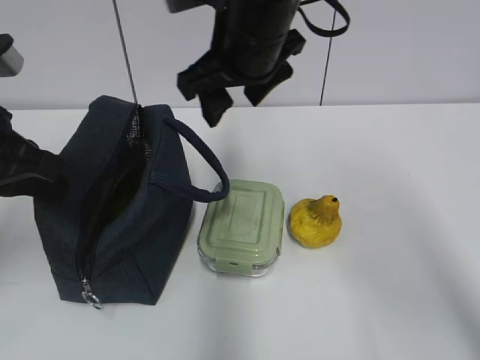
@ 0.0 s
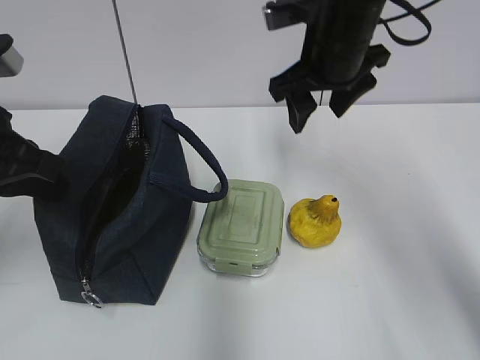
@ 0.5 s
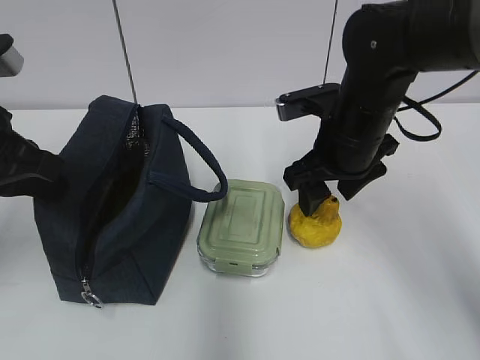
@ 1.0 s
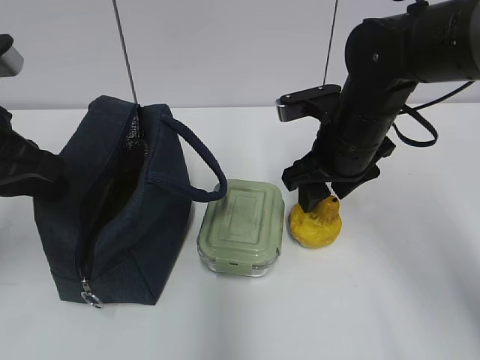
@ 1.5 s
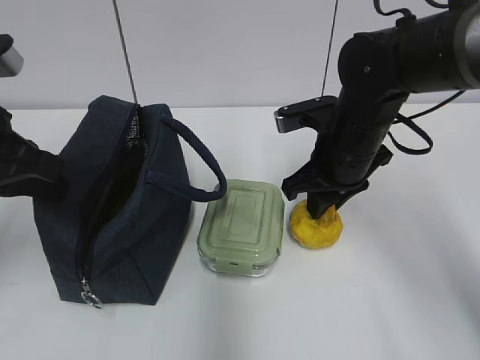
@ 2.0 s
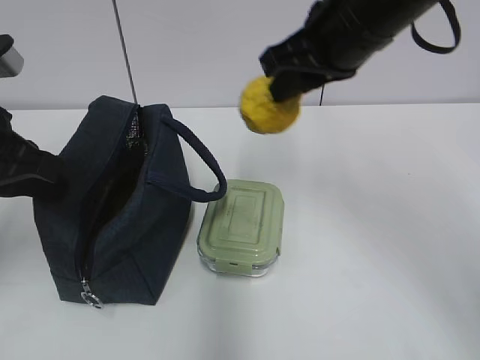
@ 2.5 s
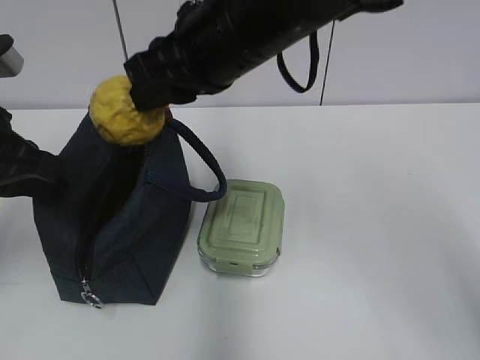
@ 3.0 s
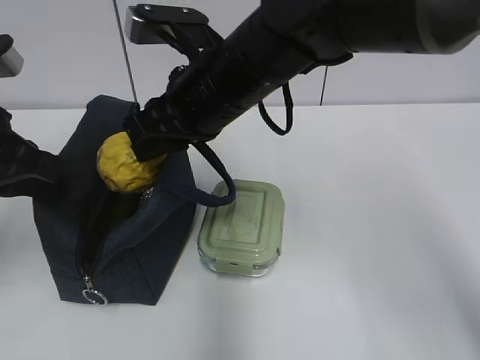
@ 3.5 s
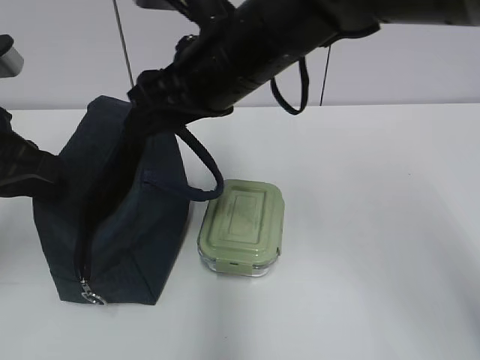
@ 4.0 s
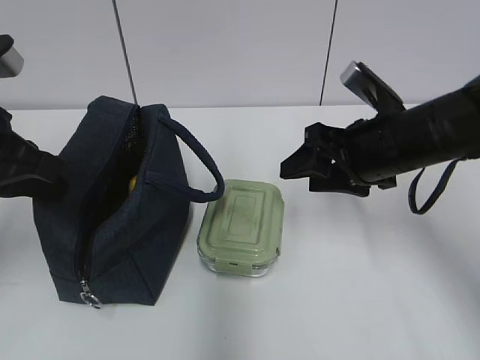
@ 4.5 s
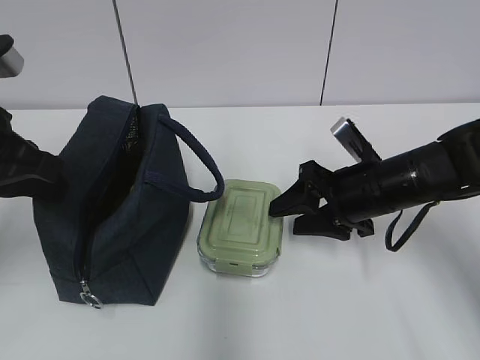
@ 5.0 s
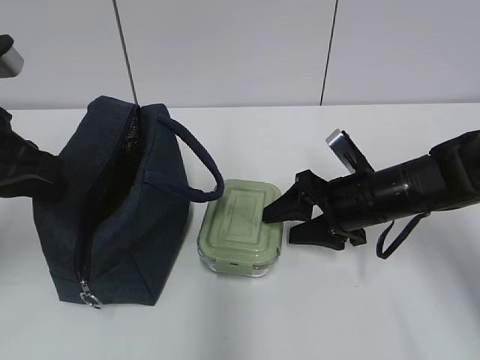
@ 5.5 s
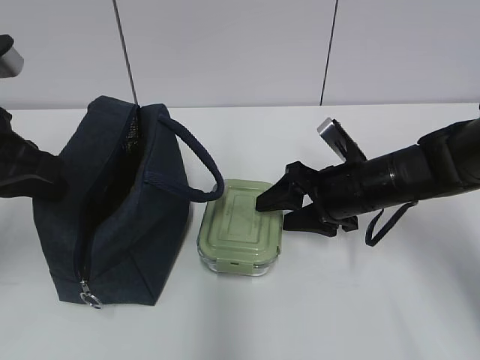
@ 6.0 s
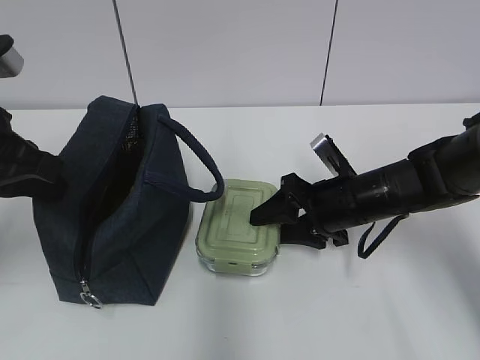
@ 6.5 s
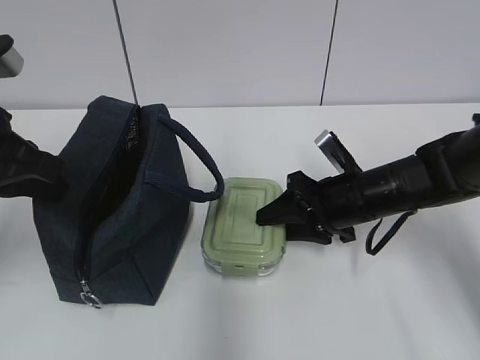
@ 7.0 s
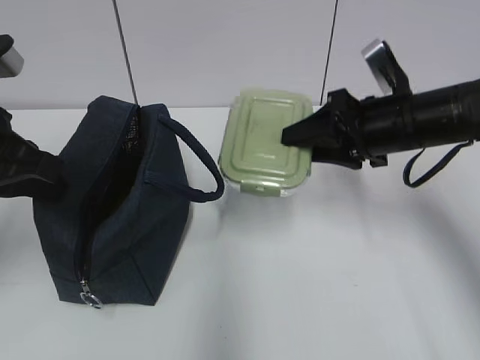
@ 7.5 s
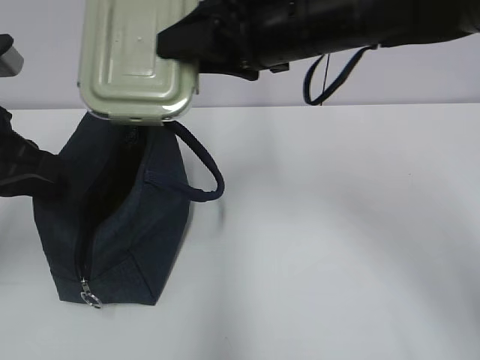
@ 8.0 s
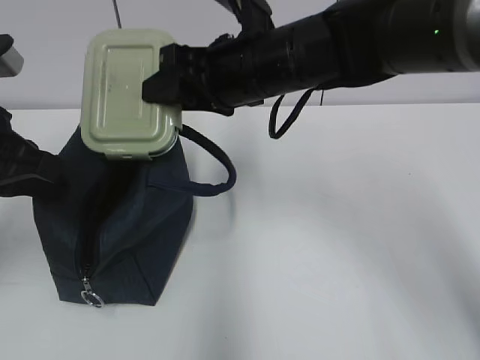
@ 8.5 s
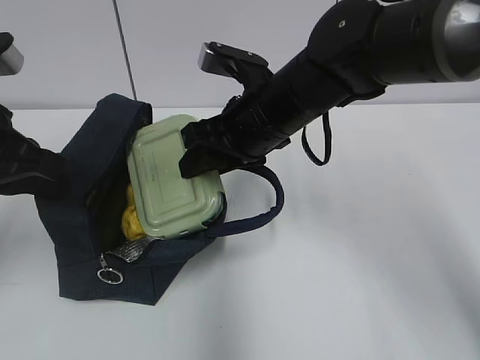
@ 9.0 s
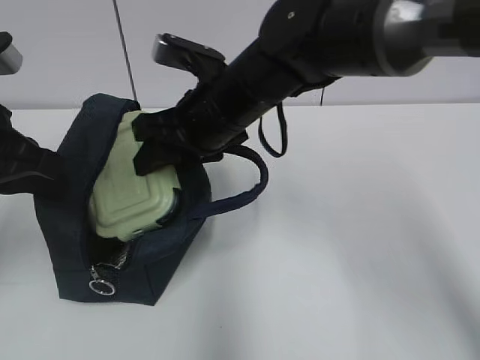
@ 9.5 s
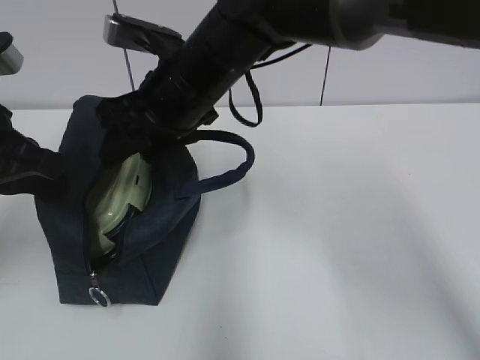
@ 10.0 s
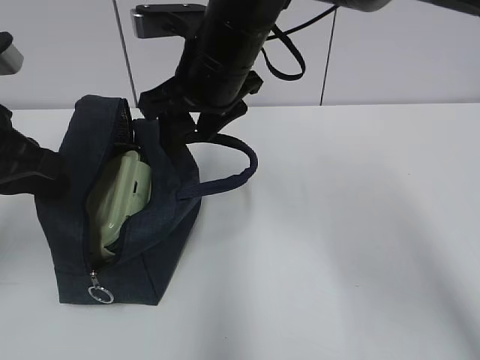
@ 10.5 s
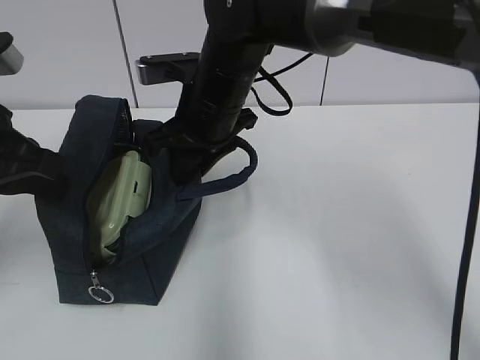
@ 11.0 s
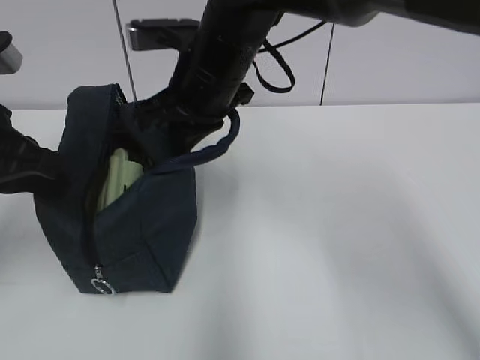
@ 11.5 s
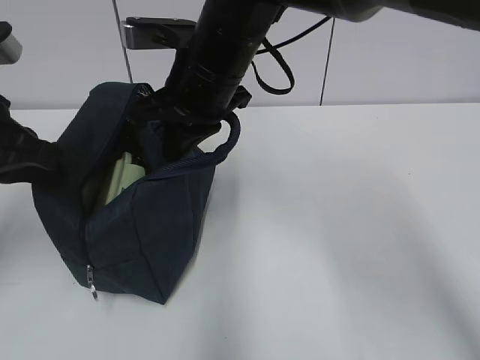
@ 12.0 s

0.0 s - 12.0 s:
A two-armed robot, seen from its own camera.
Step, 0.0 s - 1.5 s: Grab the pear with your right hand.
Step, 2.5 s - 3.5 s: Place it into the bag with your right hand.
Step, 4.0 s - 6.5 s: Grab the lunch box with your right hand.
Step, 10.5 s - 11.5 s: Grab the lunch bag with your right hand.
0.0 s - 2.0 s: The right gripper travels downward and to the right by about 15 cm, and closes up.
2.0 s - 4.0 s: The right gripper travels upward and to the left by roughly 15 cm, and opens.
4.0 s - 6.0 s: The right gripper travels downward and to the right by about 20 cm.
6.0 s - 8.0 s: The right gripper shifts approximately 20 cm upward and to the left.
8.0 s - 10.0 s: The right gripper is displaced to the left and downward by roughly 10 cm.
10.0 s - 12.0 s: The right gripper closes up.

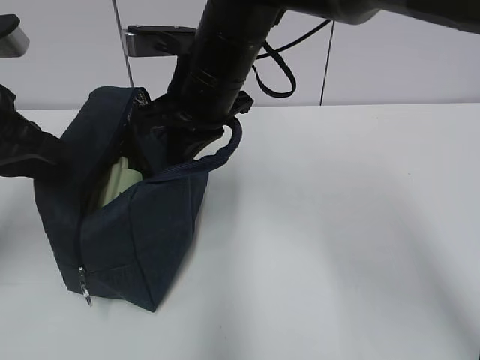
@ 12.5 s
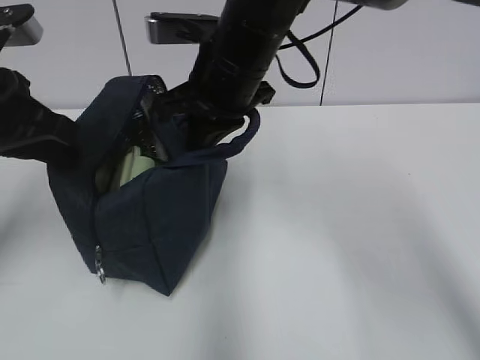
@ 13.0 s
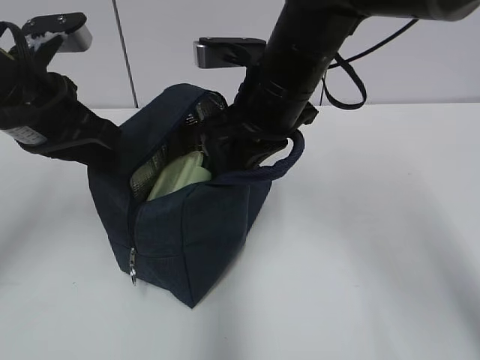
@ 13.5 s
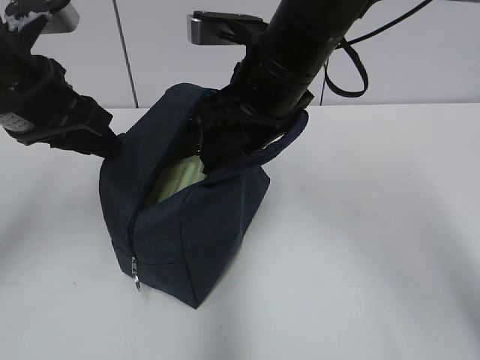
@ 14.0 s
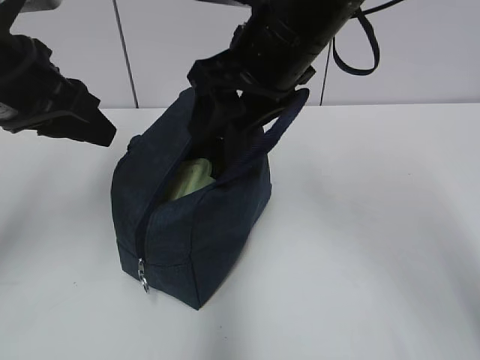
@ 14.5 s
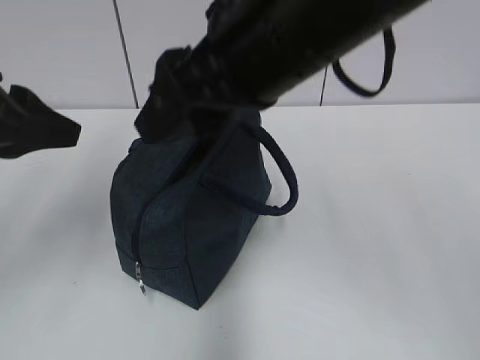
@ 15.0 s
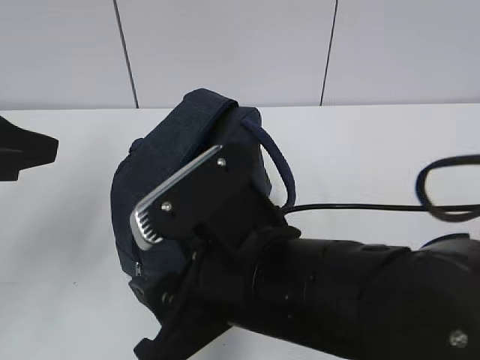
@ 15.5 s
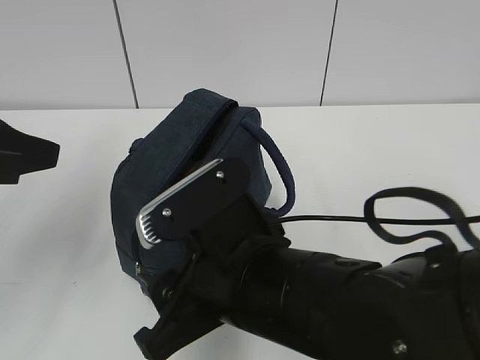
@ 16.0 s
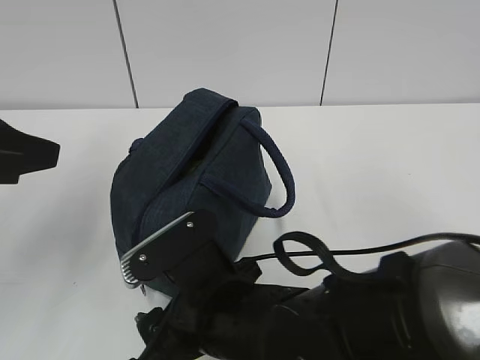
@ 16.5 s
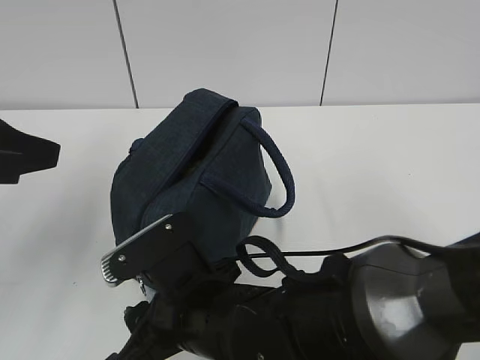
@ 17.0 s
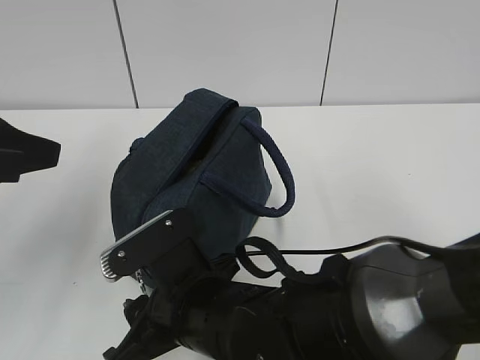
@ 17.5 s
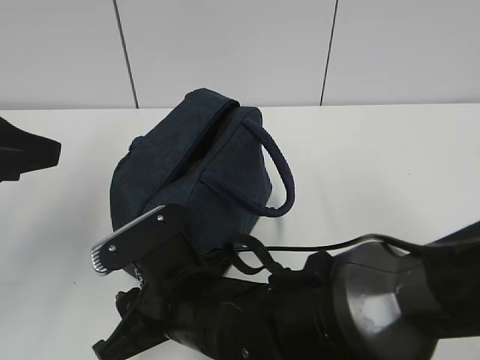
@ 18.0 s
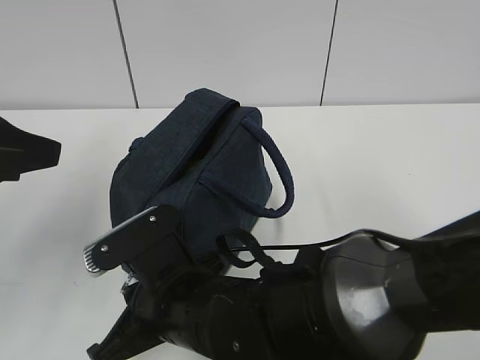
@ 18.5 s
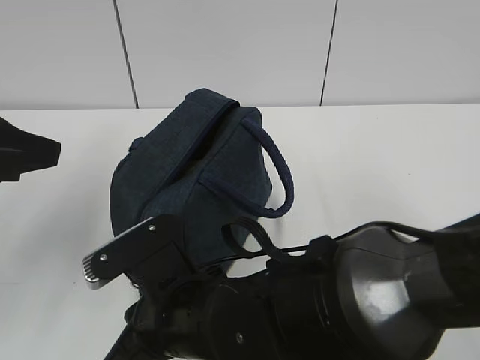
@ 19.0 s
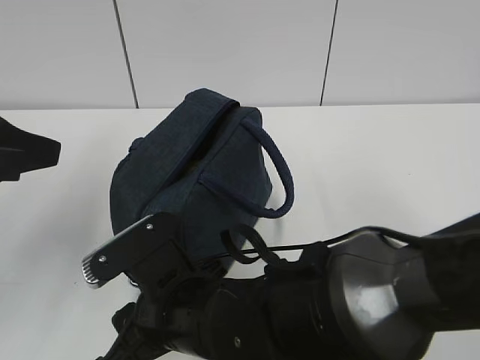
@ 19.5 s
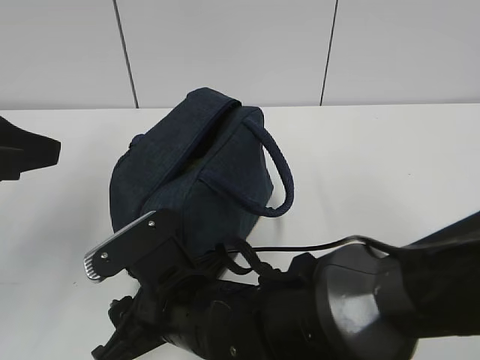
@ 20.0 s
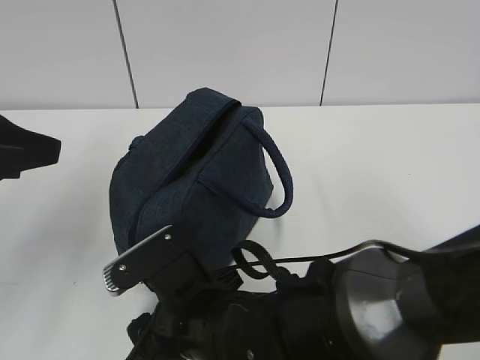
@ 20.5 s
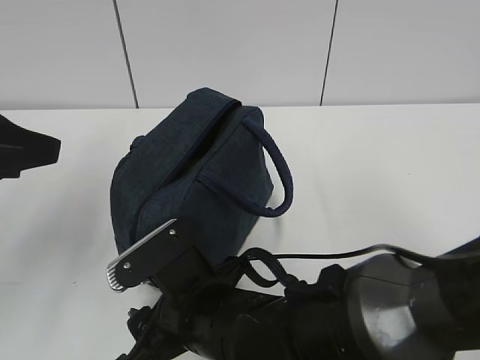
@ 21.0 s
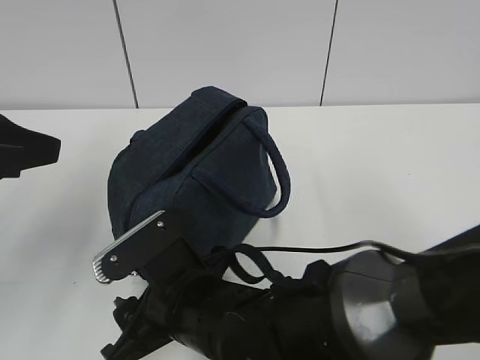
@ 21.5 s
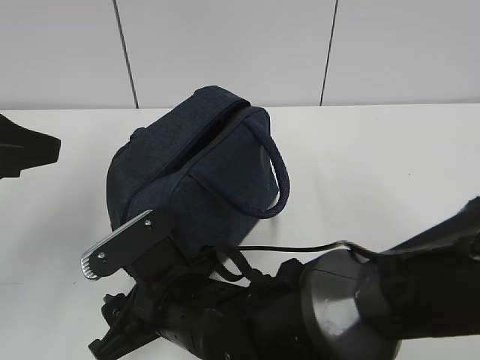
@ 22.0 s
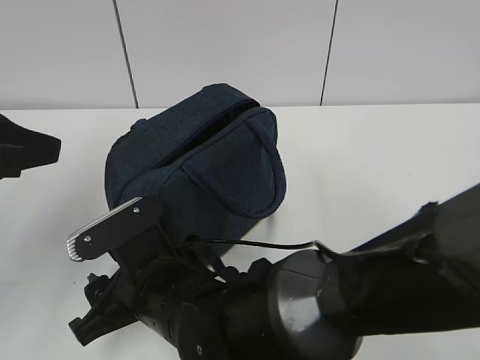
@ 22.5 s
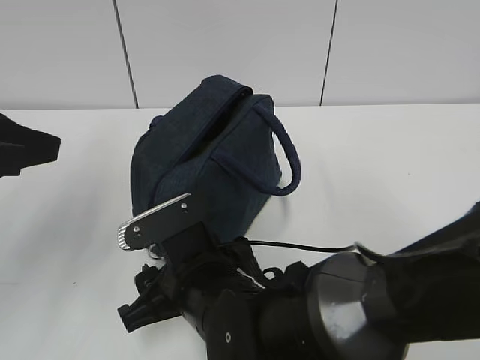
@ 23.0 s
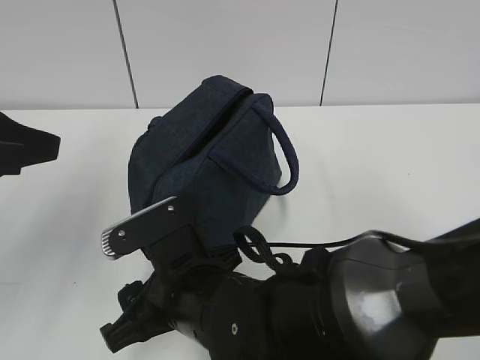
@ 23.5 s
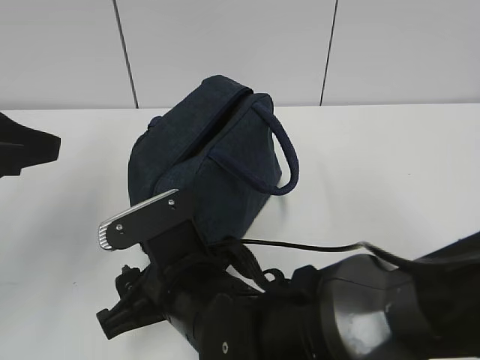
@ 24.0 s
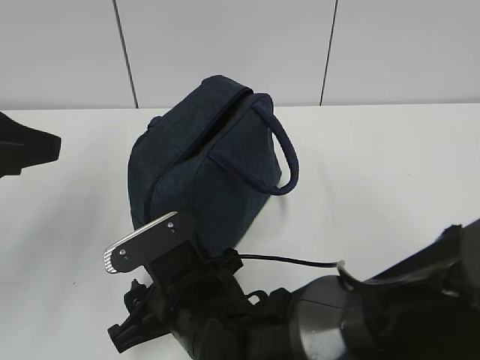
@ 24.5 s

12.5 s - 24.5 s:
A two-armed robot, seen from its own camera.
Step, 12.5 s - 14.0 s: Move the lunch bag to the right.
12.5 s - 14.5 s: The left gripper opens, while the right gripper heads to the right, covering approximately 5 cm, and opens.
14.5 s - 16.5 s: The left gripper travels backward by about 10 cm. The right gripper shifts approximately 25 cm downward and backward.
16.5 s - 18.5 s: The right gripper closes its fingers.
18.5 s - 20.5 s: The right gripper opens up.
20.5 s - 24.5 s: The grippers stay close to where they were, moving slightly.

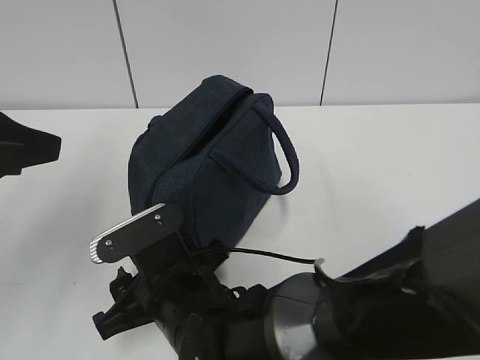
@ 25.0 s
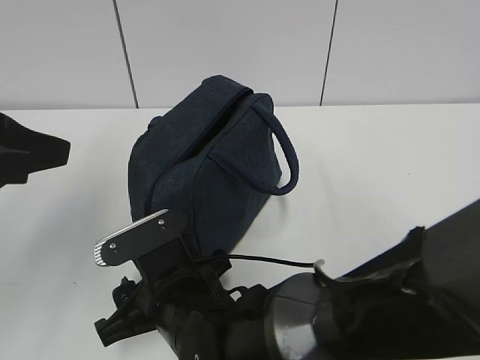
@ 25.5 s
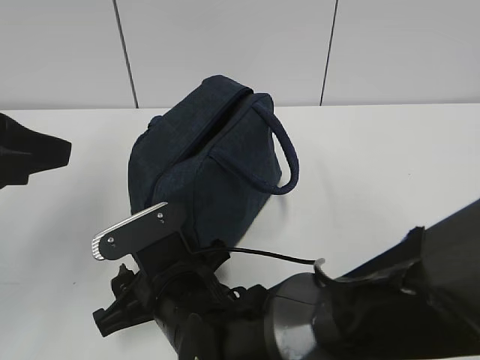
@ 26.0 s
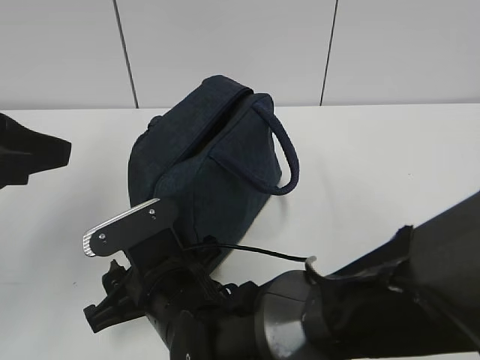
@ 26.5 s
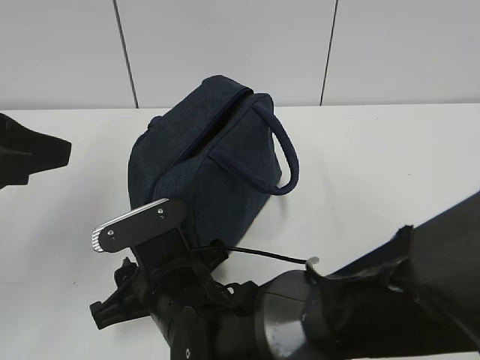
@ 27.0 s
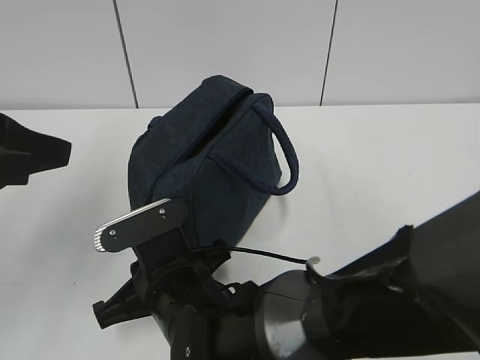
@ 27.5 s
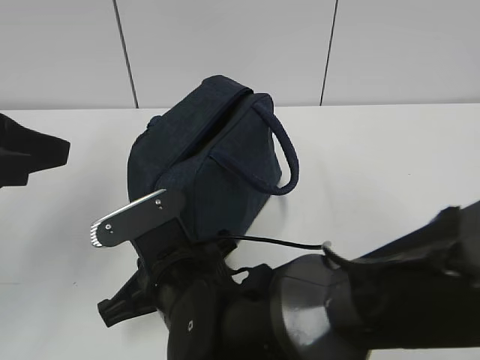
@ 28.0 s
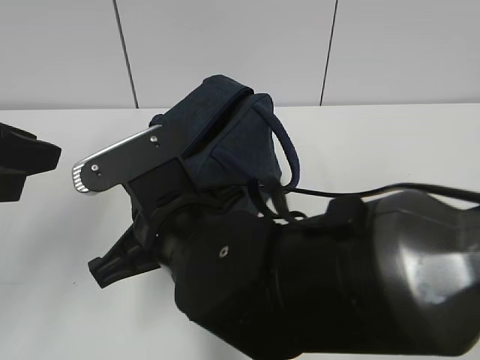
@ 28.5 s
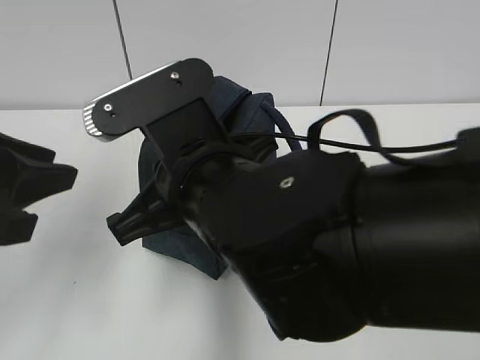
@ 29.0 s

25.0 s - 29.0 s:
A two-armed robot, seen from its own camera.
25.0 s - 27.0 s: Both grippers stay about where they are.
27.0 s - 29.0 s: The right gripper goes about 15 cm upward, and closes its fingers.
